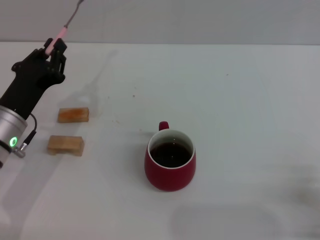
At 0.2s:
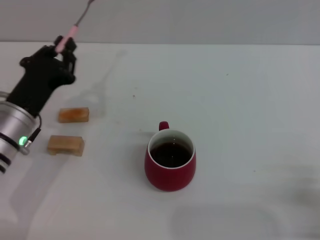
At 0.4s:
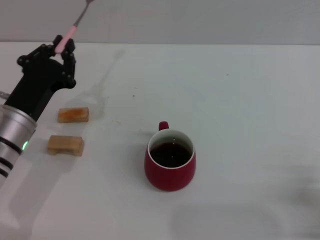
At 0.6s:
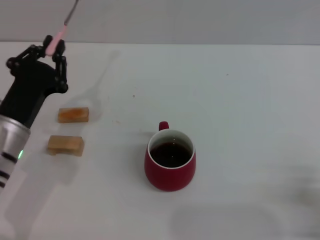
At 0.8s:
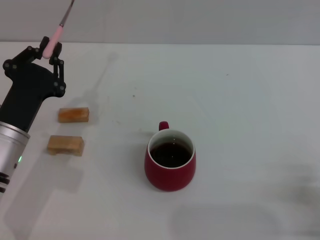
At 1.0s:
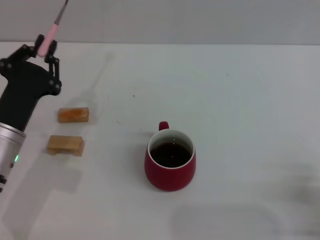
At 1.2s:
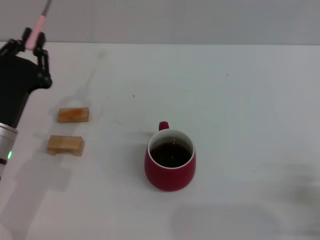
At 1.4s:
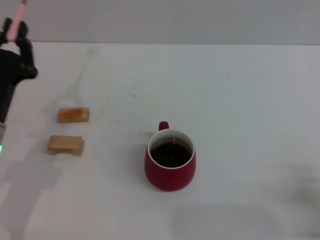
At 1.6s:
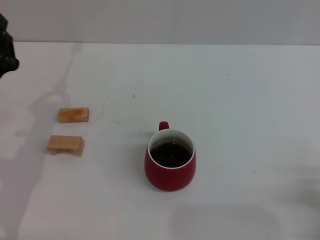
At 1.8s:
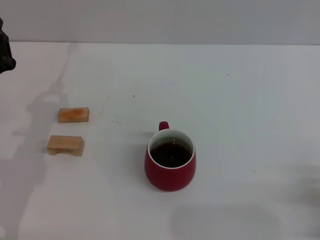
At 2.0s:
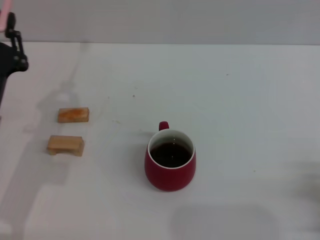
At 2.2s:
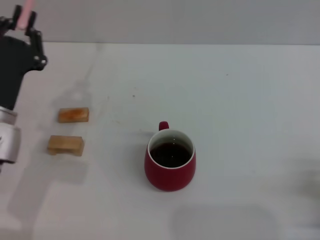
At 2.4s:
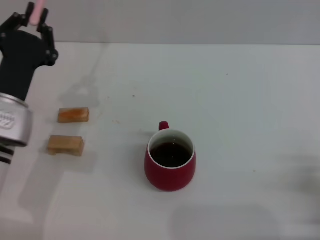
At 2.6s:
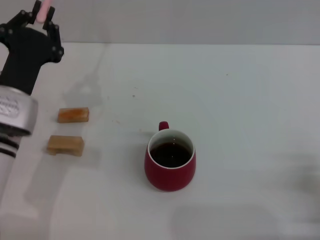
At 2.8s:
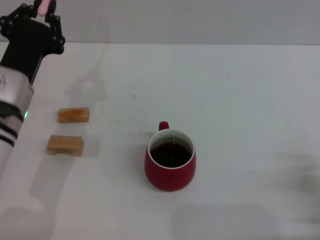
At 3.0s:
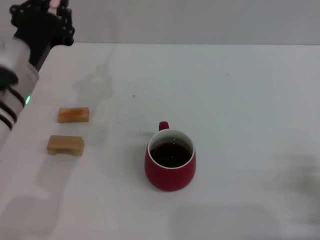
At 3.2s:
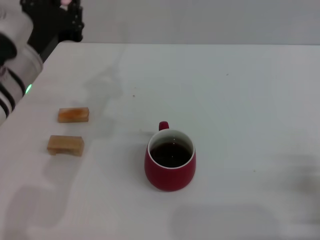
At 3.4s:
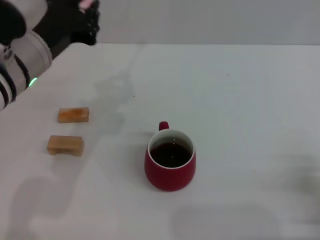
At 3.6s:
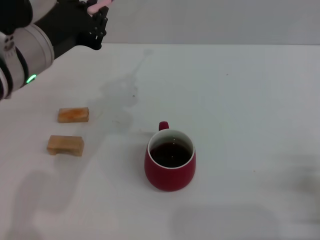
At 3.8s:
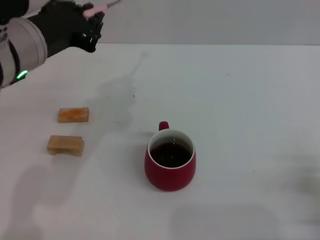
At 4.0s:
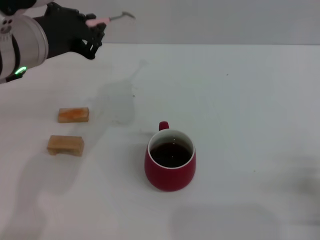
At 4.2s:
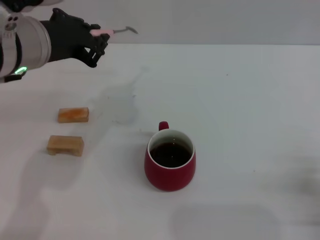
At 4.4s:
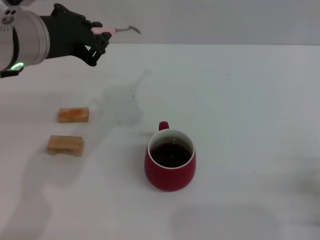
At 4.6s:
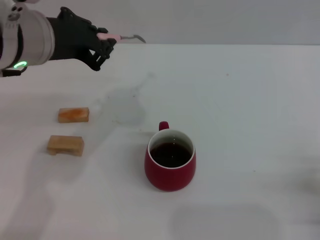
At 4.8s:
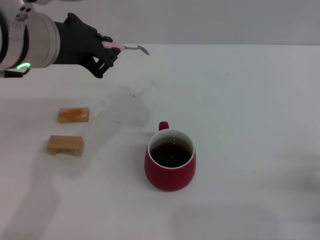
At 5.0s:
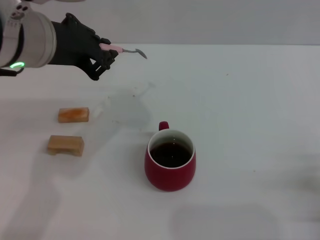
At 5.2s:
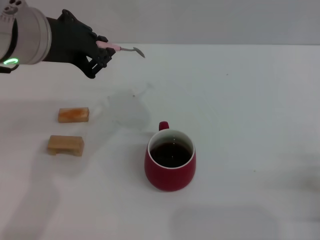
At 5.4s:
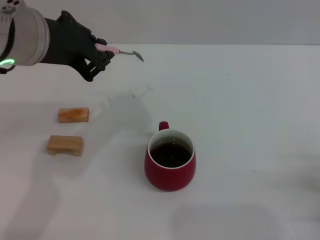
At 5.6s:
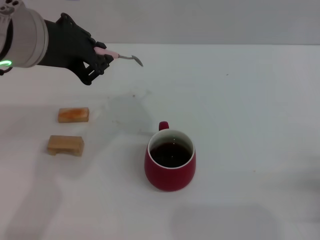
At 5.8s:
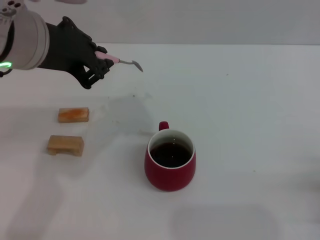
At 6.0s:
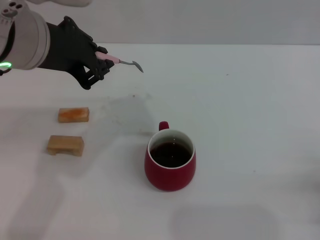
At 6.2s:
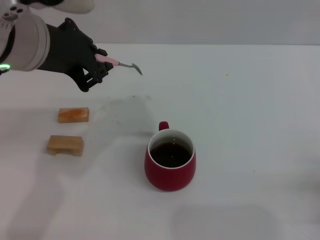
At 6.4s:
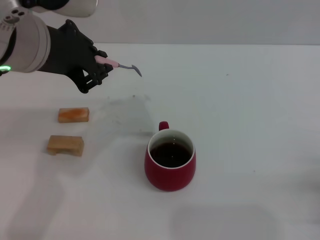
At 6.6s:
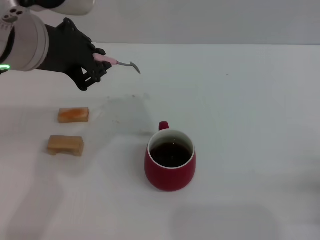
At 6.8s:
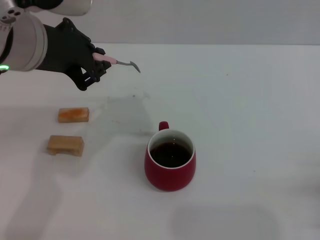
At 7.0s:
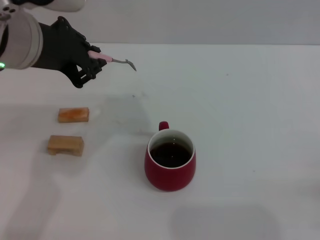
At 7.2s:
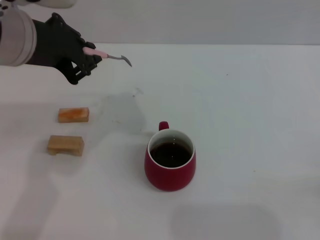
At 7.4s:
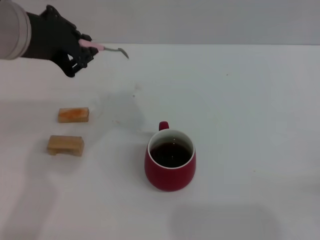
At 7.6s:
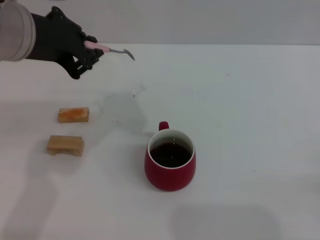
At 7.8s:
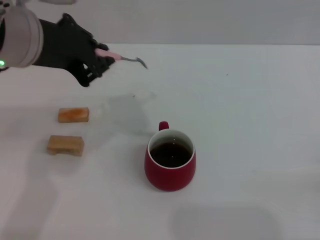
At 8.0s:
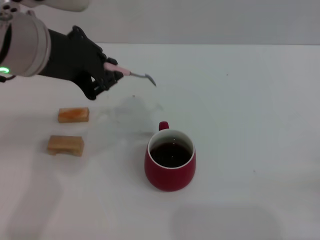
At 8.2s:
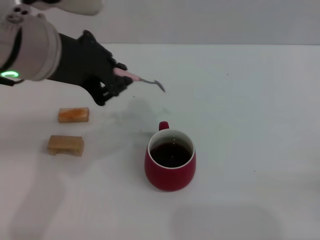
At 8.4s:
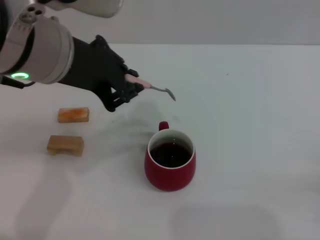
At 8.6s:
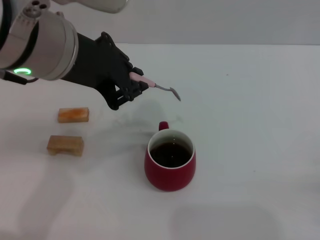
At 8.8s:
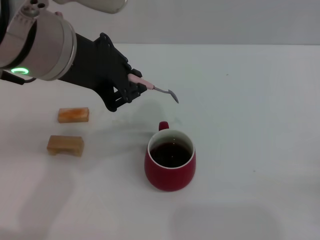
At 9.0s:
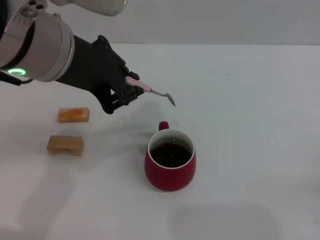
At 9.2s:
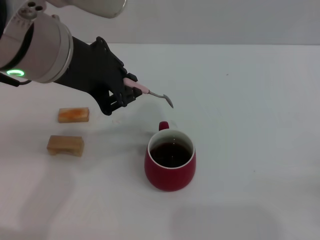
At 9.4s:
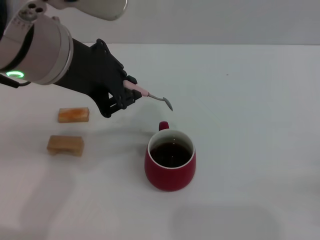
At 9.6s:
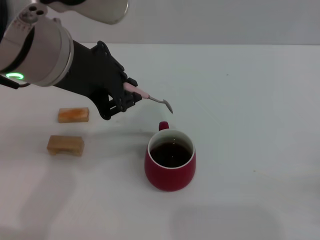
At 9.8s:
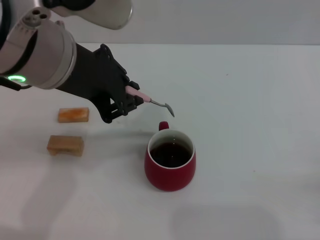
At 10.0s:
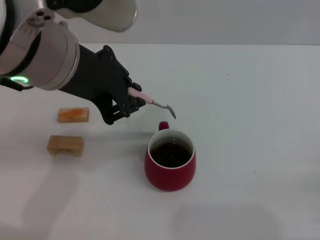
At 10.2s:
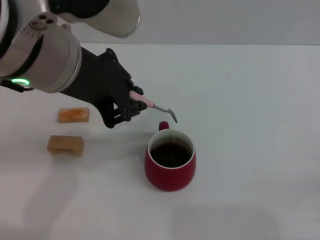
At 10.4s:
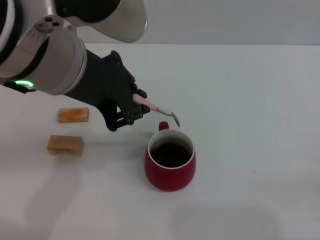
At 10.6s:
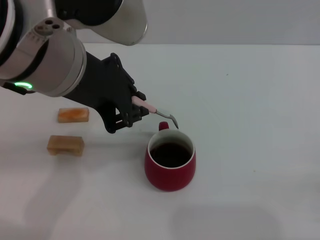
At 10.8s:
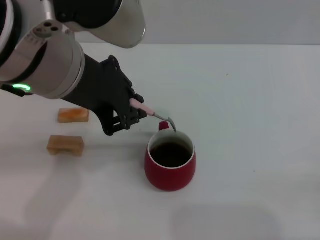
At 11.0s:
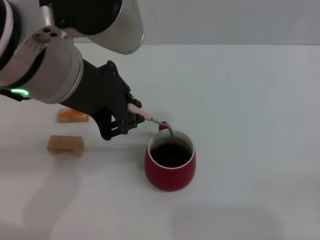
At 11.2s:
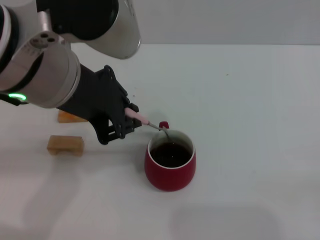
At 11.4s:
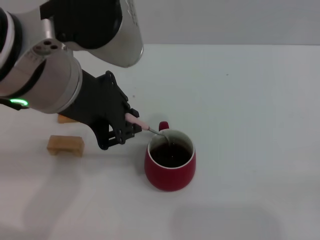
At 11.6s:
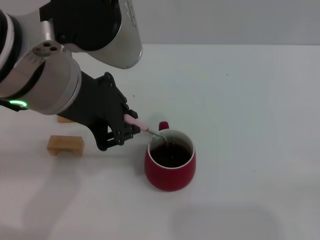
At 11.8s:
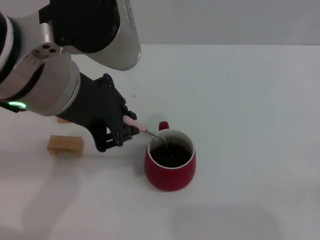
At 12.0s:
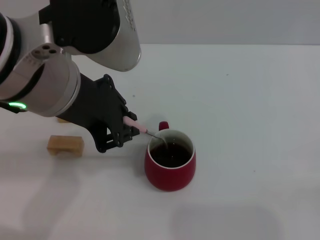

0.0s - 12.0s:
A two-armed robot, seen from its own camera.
Task of the whole recording: Move the red cup to the center, lift the pink spoon, stir it three times in the cup, and put the spoon into the cup.
1.6s - 3.0s: The left gripper shifts about 10 cm upward and to the right.
3.0s - 4.4s: The left gripper is displaced upward by roughly 10 cm.
4.4s - 6.0s: The grippers make only small movements.
6.0s - 7.6s: The grippers make only small movements.
7.6s - 9.0s: The left gripper shifts by about 5 cm.
9.0s - 12.0s: The grippers stay close to where they were, moving slightly.

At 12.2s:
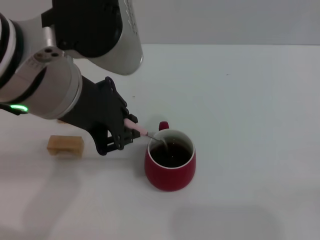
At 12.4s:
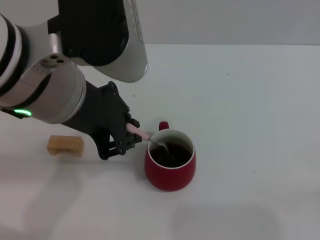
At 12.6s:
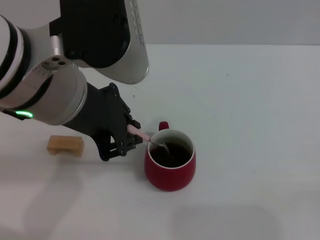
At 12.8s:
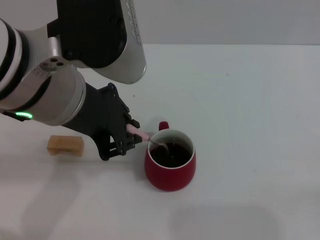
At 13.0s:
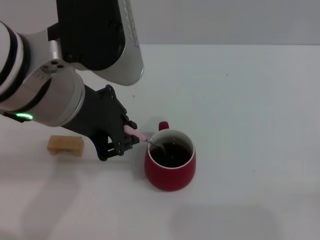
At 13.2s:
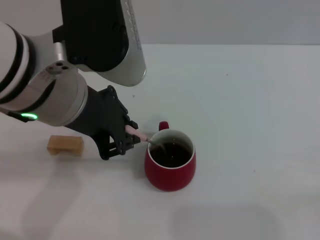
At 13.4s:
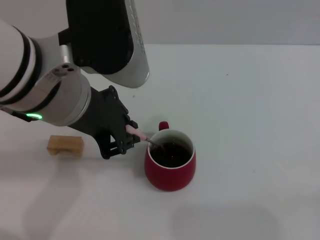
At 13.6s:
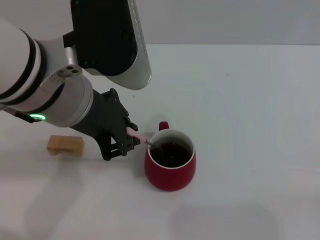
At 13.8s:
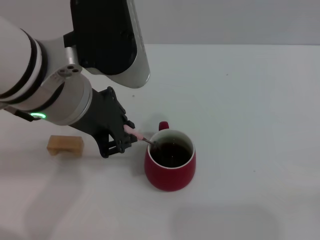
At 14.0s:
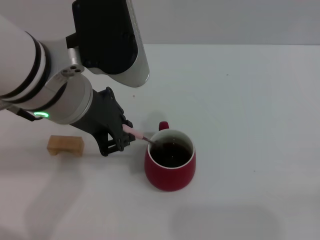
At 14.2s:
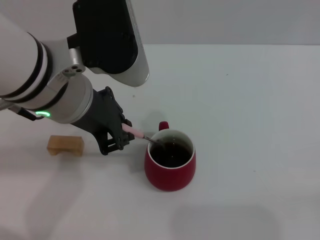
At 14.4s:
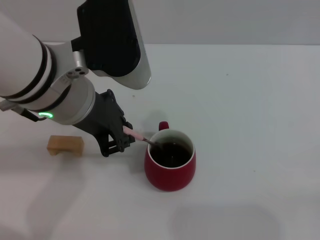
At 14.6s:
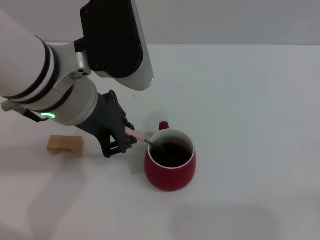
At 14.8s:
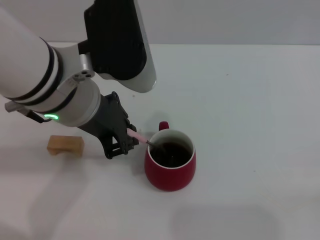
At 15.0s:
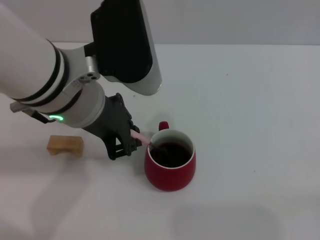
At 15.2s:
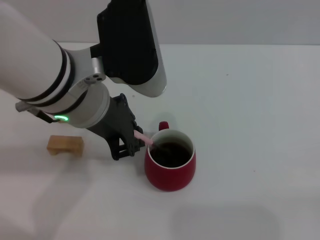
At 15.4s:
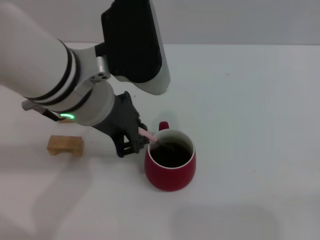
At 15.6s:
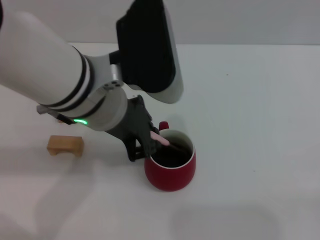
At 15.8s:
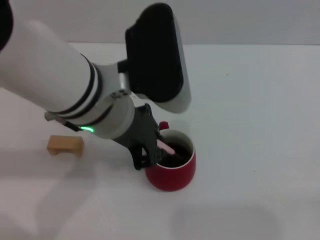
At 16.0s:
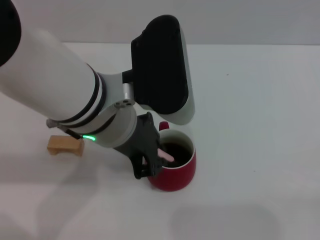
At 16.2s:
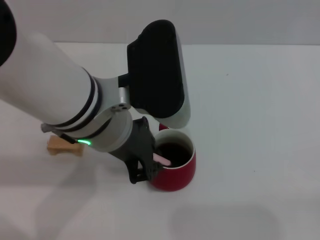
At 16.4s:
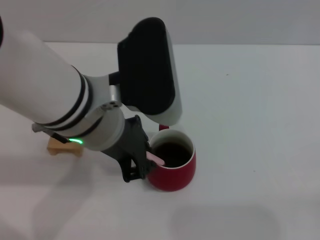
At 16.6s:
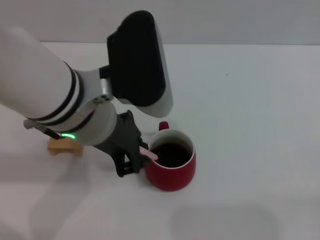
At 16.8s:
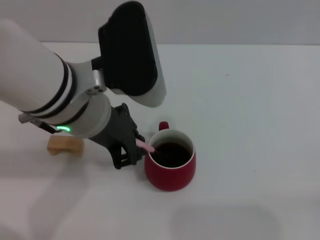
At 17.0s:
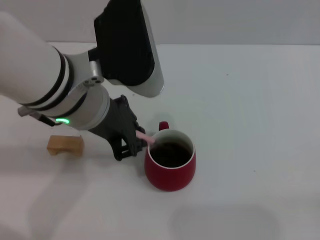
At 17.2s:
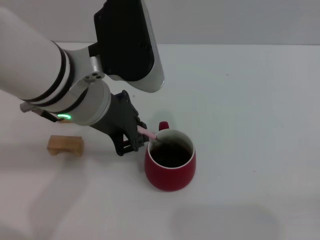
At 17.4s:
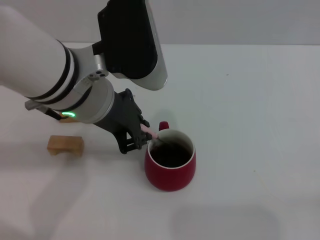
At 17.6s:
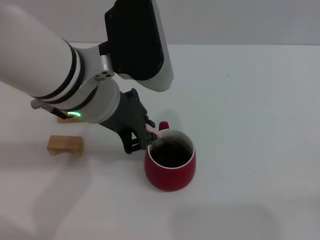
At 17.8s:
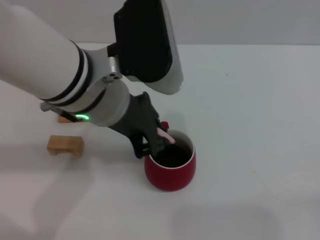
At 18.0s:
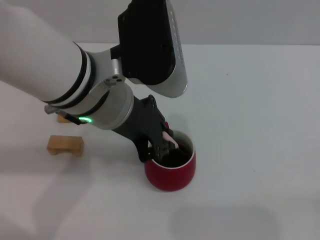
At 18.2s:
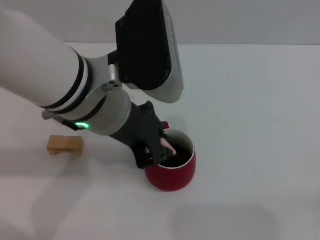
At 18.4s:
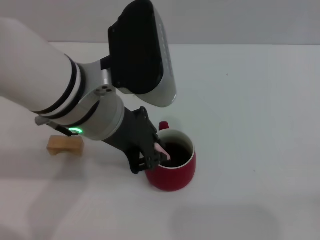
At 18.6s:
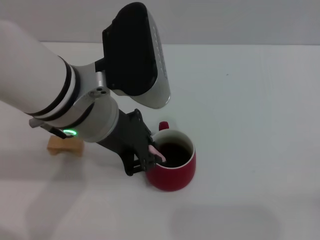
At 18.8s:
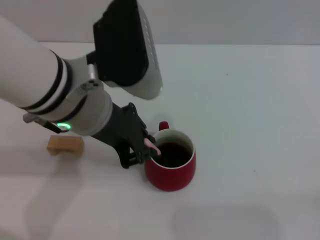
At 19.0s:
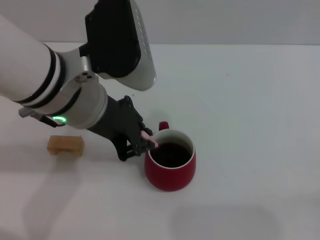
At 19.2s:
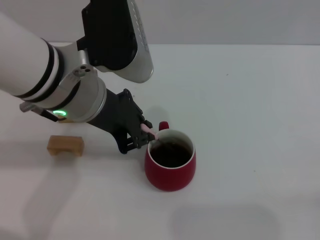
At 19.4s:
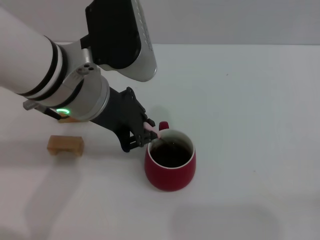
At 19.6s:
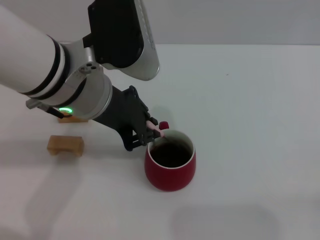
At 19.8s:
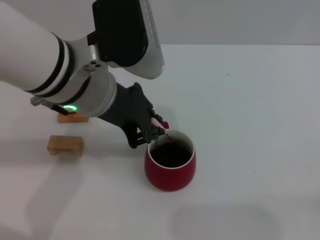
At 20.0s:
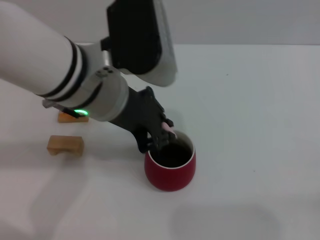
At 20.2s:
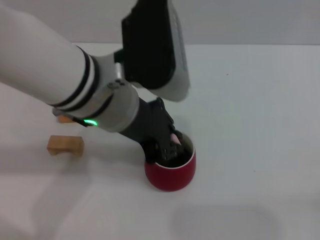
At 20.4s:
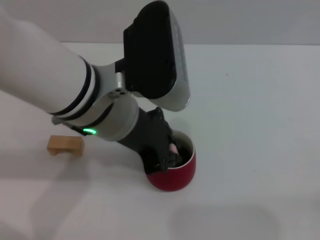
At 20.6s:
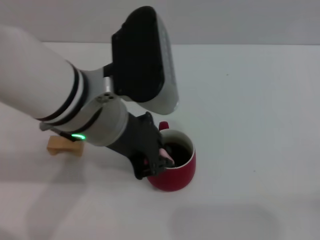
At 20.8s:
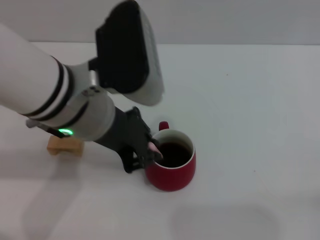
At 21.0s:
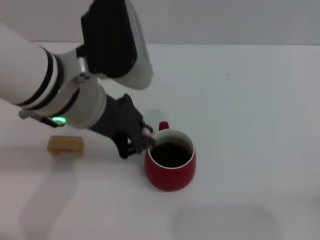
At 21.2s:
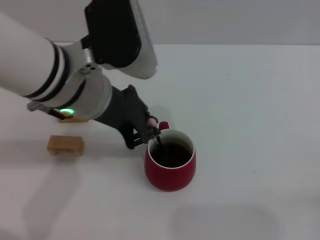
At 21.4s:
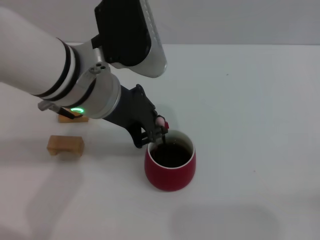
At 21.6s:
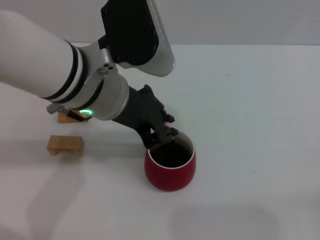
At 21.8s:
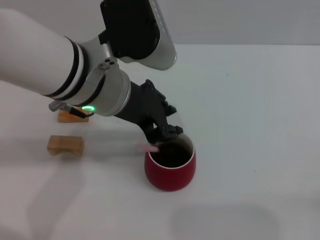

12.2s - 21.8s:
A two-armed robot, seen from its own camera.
Task of the whole recording: Move the red cup to the center, lift the pink spoon, stir it three times in the cup, and put the spoon into the cup.
12.2s - 13.8s: The grippers stay close to where they were, moving slightly.
13.8s - 21.8s: The grippers move only a little.

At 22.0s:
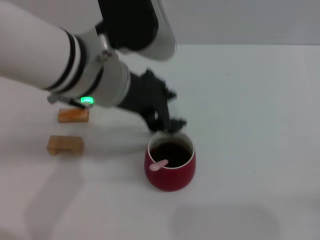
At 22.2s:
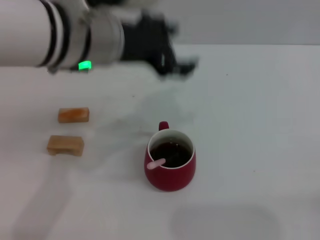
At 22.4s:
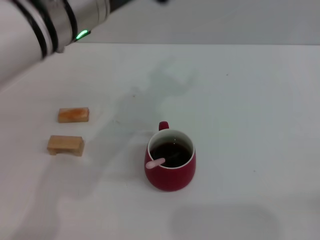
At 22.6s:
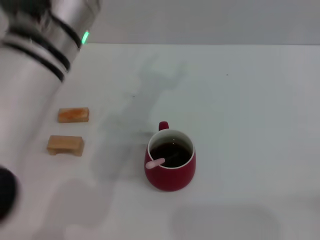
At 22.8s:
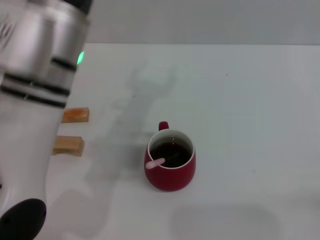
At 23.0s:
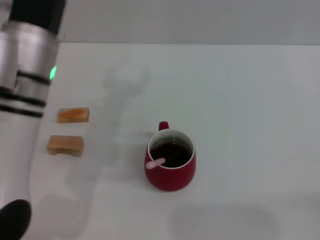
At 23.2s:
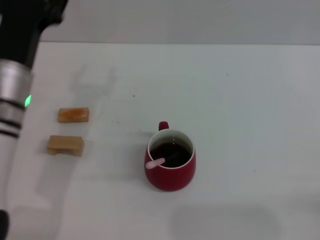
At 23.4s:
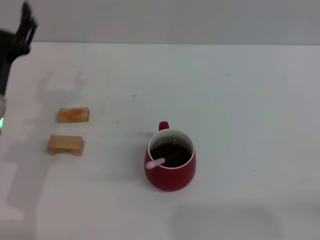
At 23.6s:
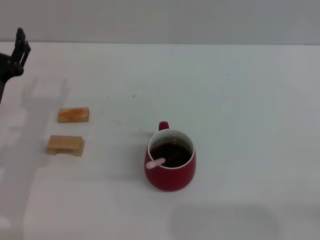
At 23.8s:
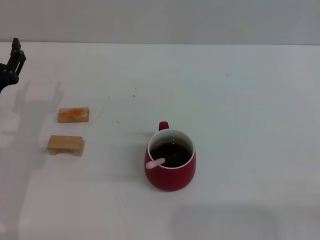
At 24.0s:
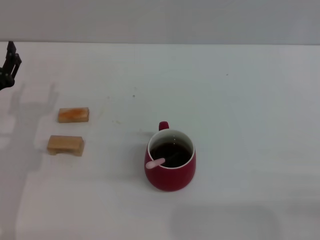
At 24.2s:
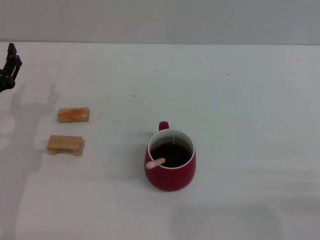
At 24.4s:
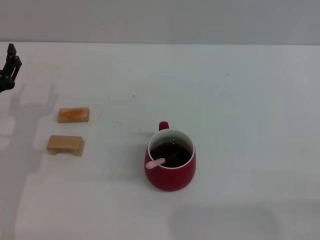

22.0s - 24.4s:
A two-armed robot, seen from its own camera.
Task of the whole recording: Move the red cup to the center, lift the pink spoon, stir it three times in the cup, and put the spoon into the cup.
22.0s - 23.2s: The left gripper moves downward and to the left, about 15 cm, and opens.
23.2s - 24.4s: The left gripper heads to the left and downward, covering about 10 cm.
